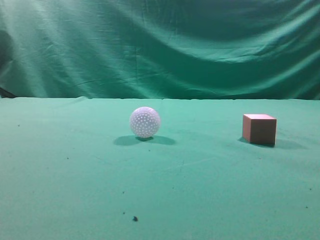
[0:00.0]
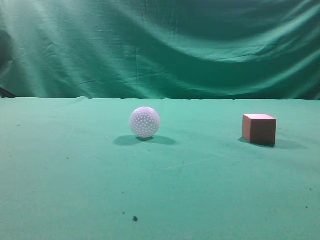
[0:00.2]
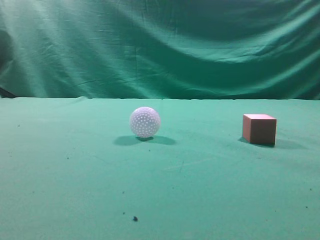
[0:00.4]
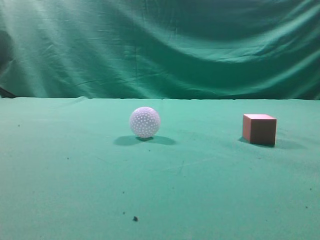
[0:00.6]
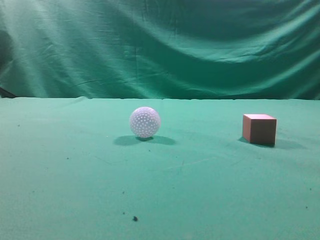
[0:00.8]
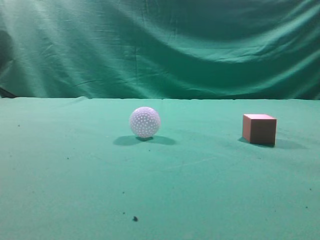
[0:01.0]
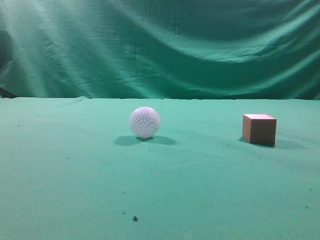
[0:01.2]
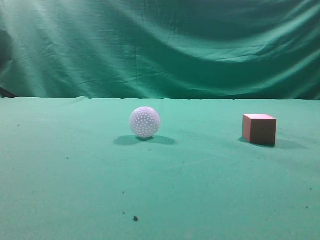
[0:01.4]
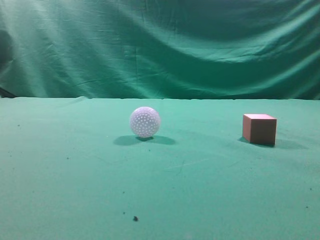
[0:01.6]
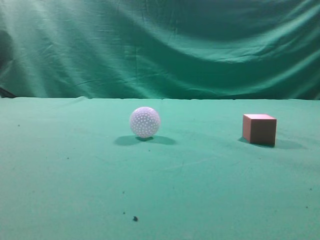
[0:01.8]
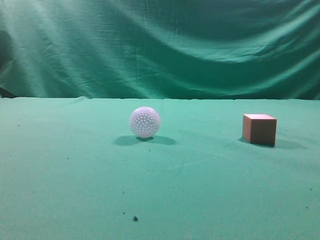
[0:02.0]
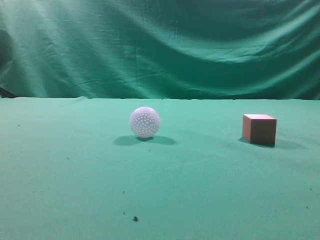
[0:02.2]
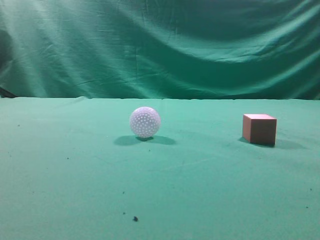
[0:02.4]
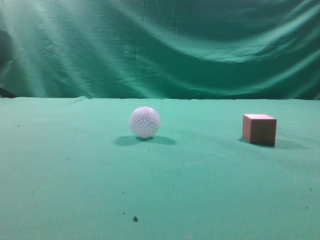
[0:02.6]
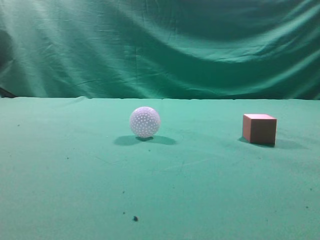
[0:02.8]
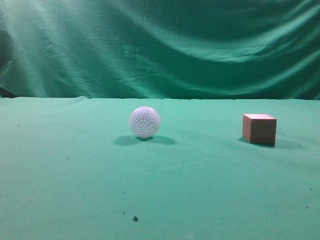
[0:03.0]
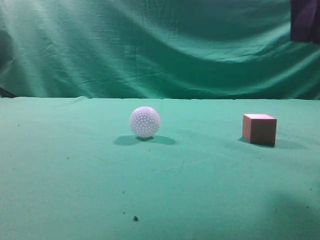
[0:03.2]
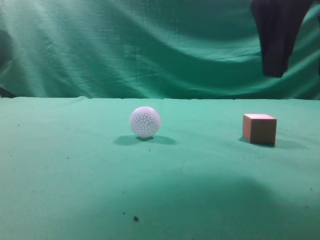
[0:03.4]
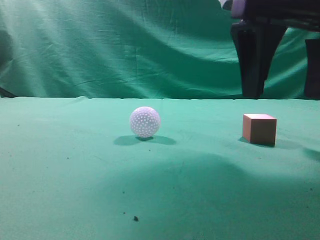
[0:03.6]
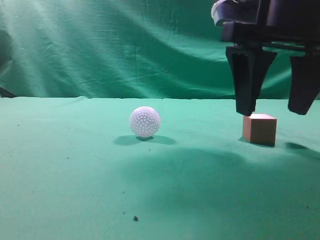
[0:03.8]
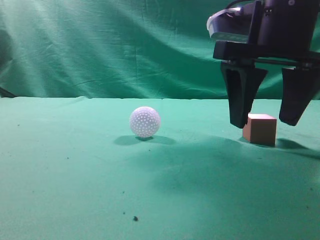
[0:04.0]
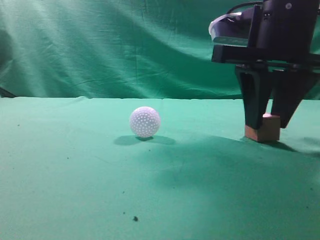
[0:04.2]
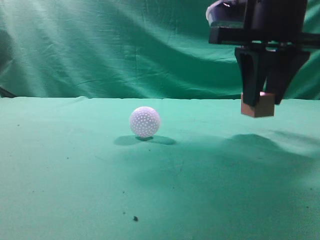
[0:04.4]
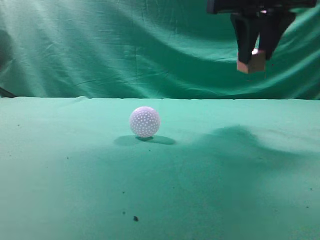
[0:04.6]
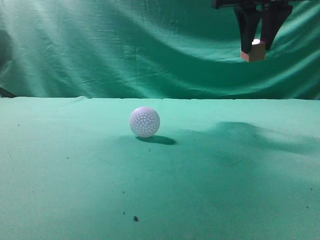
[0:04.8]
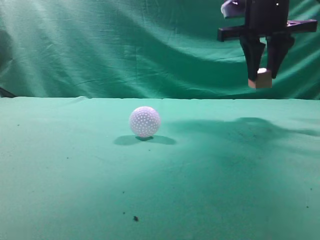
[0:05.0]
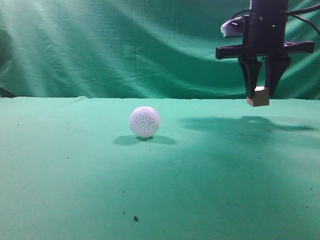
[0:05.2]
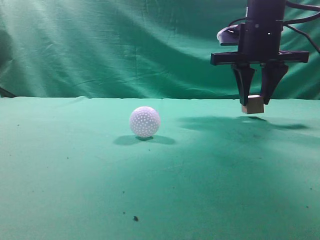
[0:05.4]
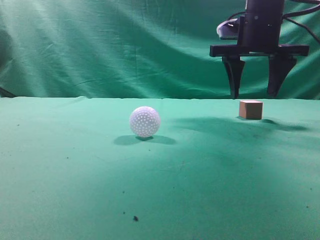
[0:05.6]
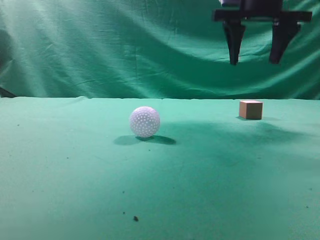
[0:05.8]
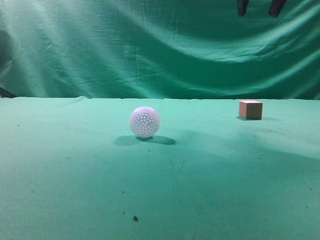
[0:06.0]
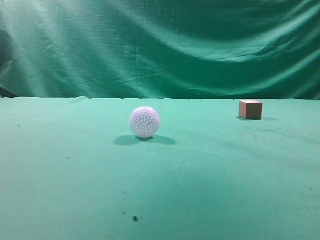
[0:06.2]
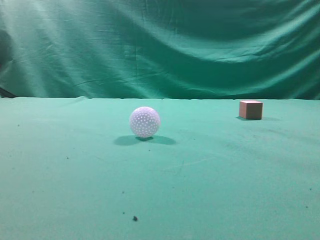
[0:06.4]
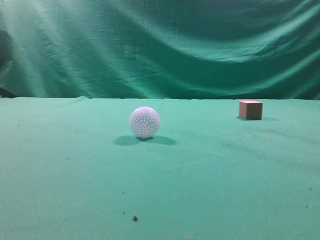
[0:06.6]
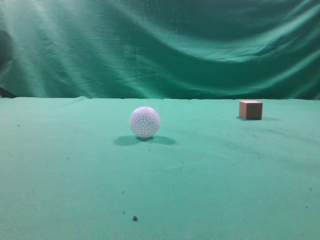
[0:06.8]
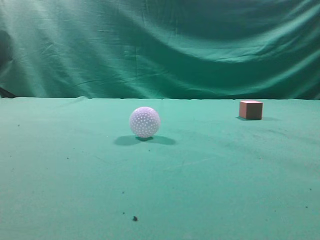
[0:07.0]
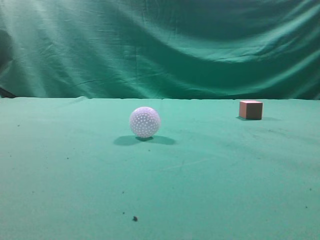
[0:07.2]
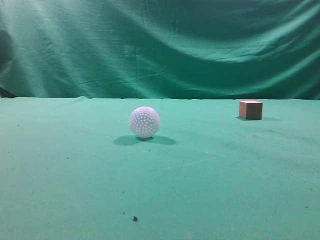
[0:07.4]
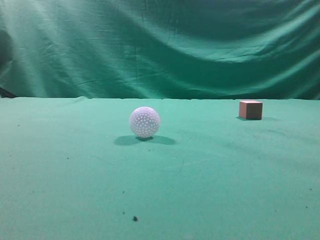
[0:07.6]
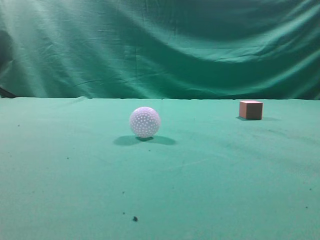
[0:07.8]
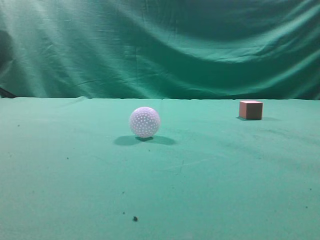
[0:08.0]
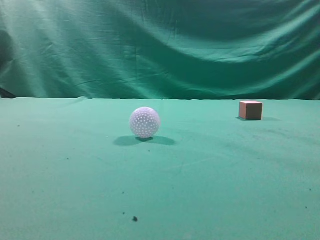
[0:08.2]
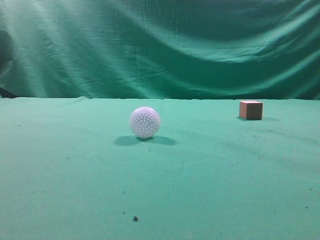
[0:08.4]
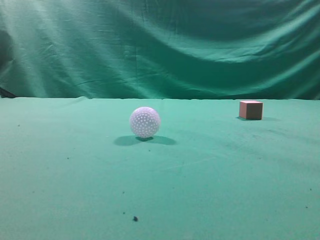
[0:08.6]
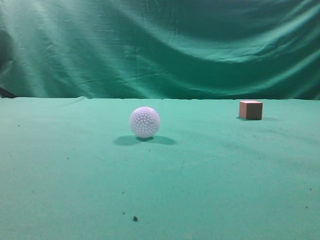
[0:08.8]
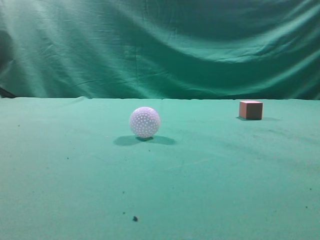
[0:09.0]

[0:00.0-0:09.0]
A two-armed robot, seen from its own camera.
Task of the whole recording: pick up the cube block and place it in another position on the table.
Step, 0:00.0 to 0:04.2: Pick up the small cube.
Step, 0:04.4 to 0:05.4: Place the small cube on the ahead of the table.
0:03.0 to 0:04.4: The right gripper goes some 10 cm forward and downward, and opens, then closes again.
0:04.4 to 0:06.0: The right gripper swings up and down, roughly 15 cm each way, with 2 reversals.
0:06.0 to 0:07.6: The right gripper is displaced backward by roughly 30 cm, and closes.
